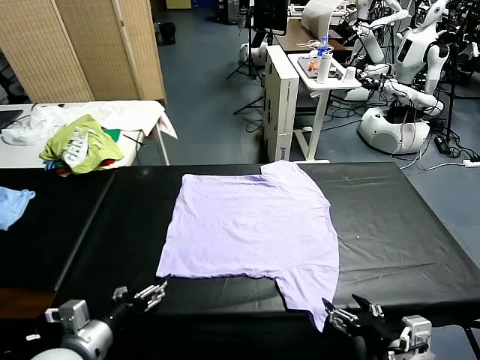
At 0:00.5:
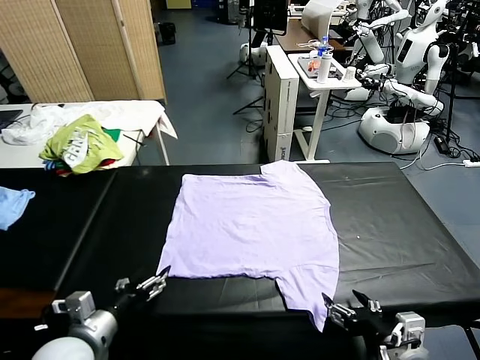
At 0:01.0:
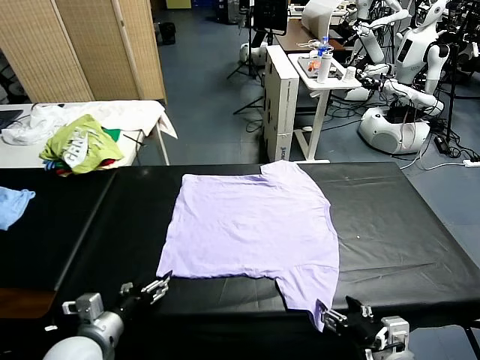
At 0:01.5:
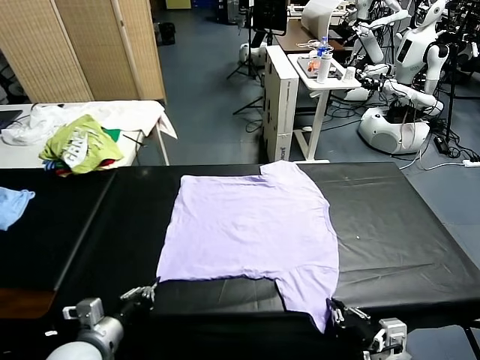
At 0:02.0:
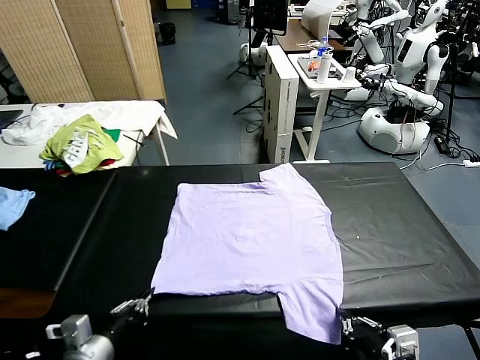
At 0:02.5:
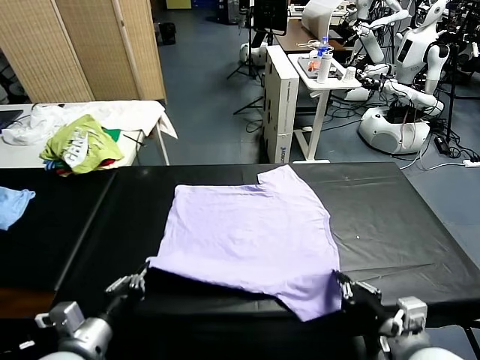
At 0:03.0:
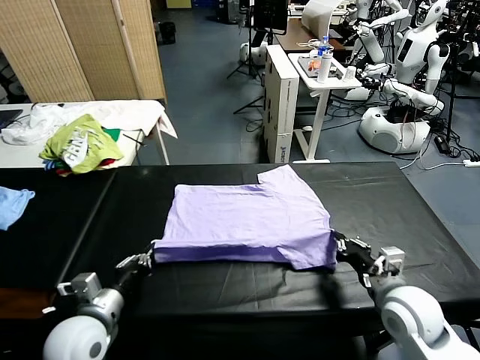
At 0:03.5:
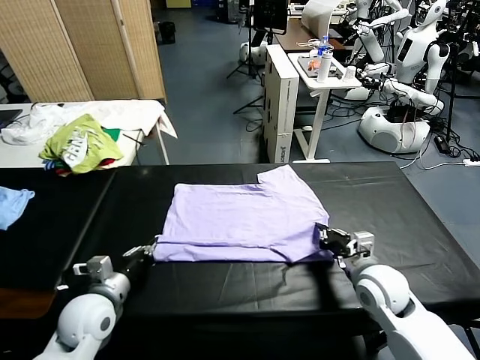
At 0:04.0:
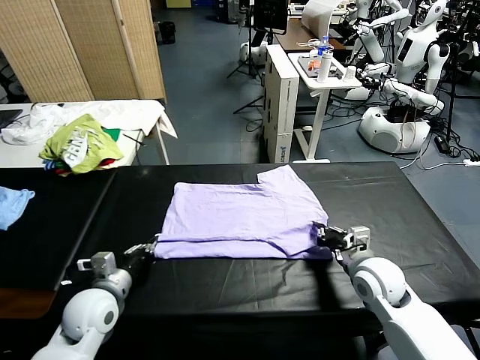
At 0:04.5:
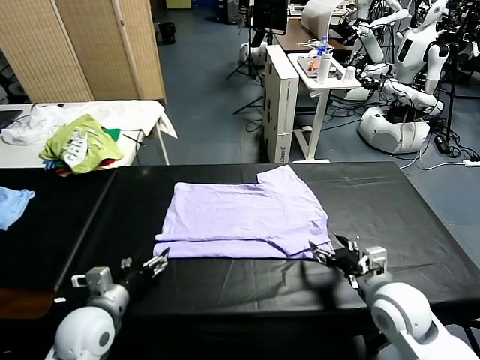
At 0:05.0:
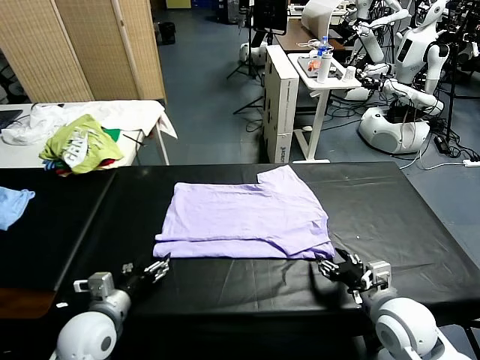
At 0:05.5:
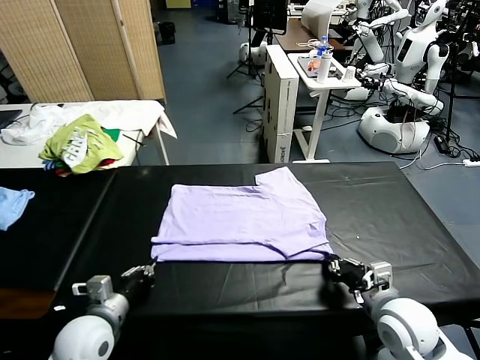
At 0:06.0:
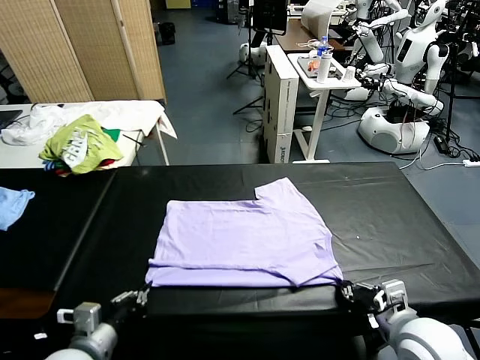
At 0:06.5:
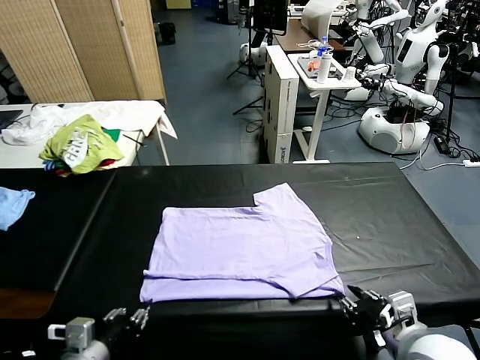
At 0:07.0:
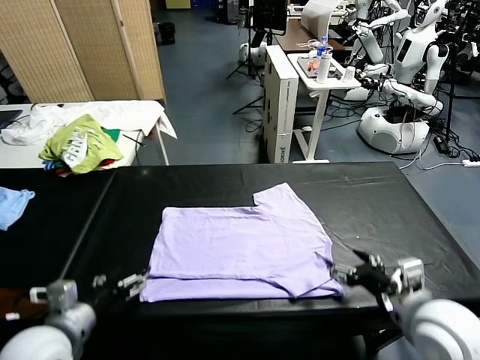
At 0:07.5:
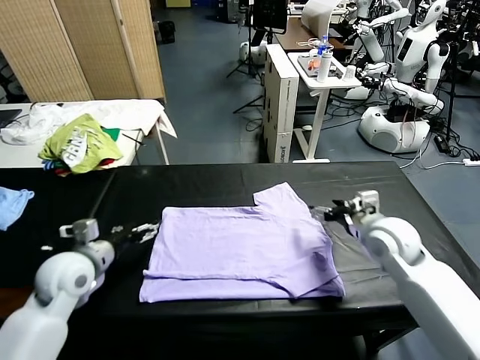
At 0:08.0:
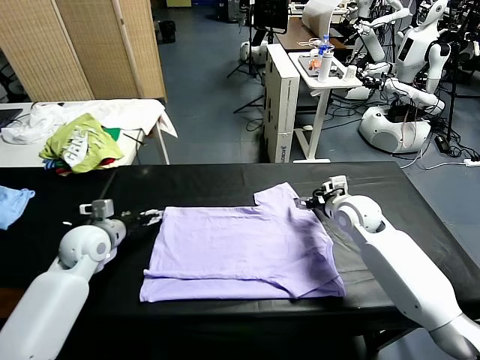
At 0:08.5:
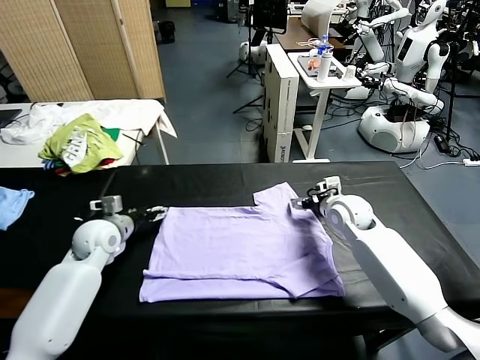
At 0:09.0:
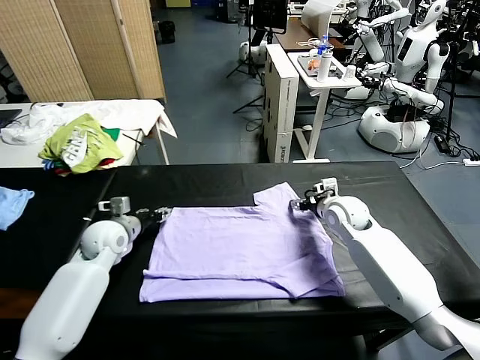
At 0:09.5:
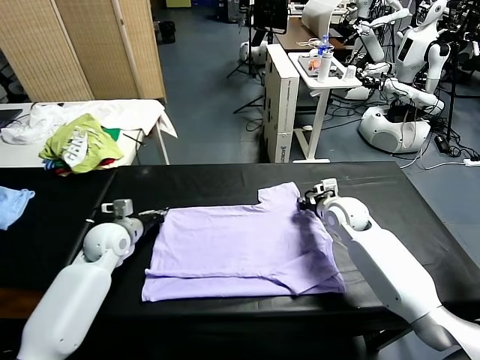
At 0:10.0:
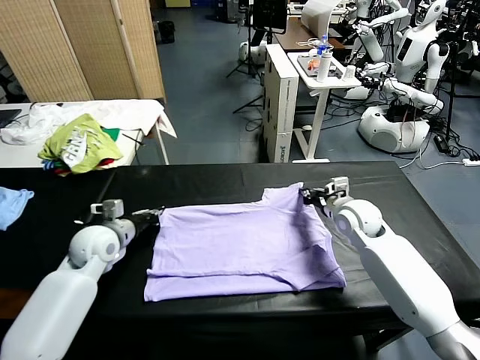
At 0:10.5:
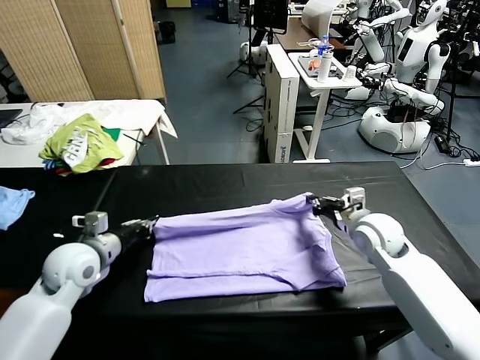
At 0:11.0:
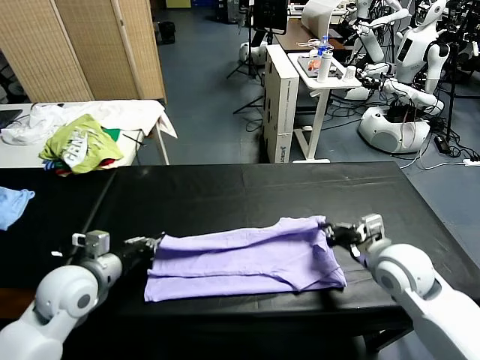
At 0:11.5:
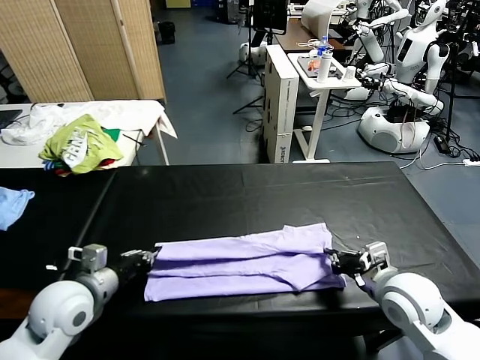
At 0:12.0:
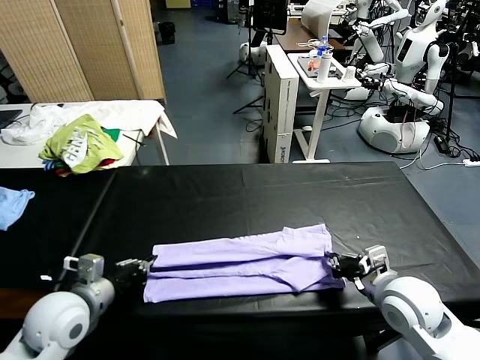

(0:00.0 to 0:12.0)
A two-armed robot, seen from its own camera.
Task of the whole recording: fold and organize the clothes.
Step, 0:00.0 - 0:01.5: use both grippers simultaneously to clamp the lower edge of the clothing fabric.
Step, 0:02.0 - 0:04.0: use both grippers to drag the lower edge of the fabric forward and fold it over the upper edge.
Step, 0:04.5 - 0:06.5: Drag the clothes downward with both gripper.
Step, 0:07.0 - 0:09.5: use both grippers simultaneously to clamp the upper edge of the clothing fabric.
0:02.0 - 0:04.0: The two grippers go roughly 15 cm forward. The right gripper opens its fingers, while the left gripper opens.
0:04.0 - 0:06.0: The grippers both shift backward by some 10 cm. The right gripper closes its fingers. Meanwhile the left gripper closes up.
0:06.0 - 0:08.0: Both grippers move forward, roughly 30 cm. The left gripper opens its fingers; the right gripper opens its fingers.
0:08.0 - 0:10.0: The left gripper closes. The right gripper closes up.
0:10.0 - 0:12.0: The grippers both shift backward by roughly 15 cm.

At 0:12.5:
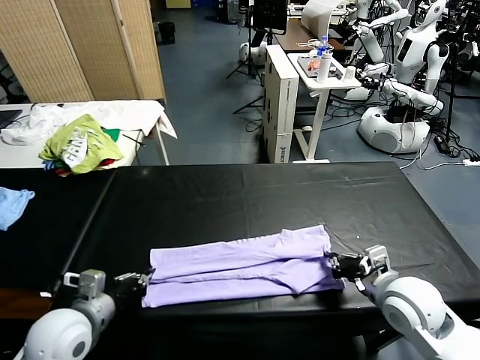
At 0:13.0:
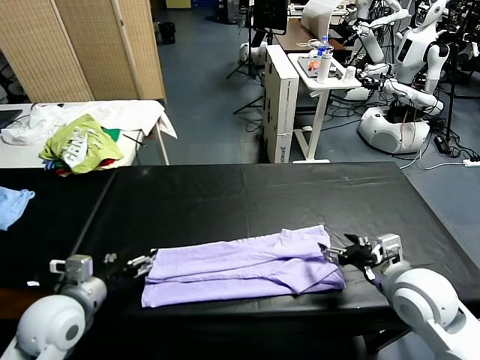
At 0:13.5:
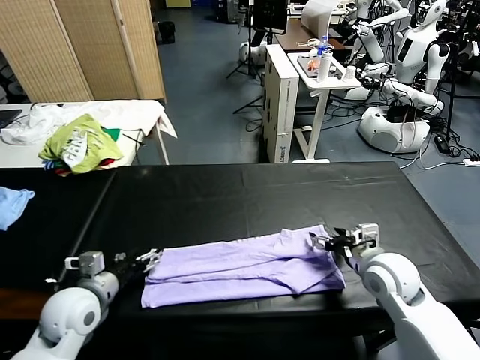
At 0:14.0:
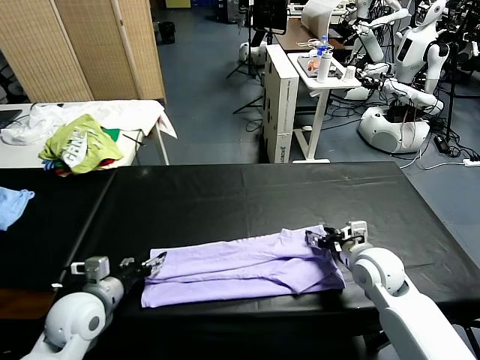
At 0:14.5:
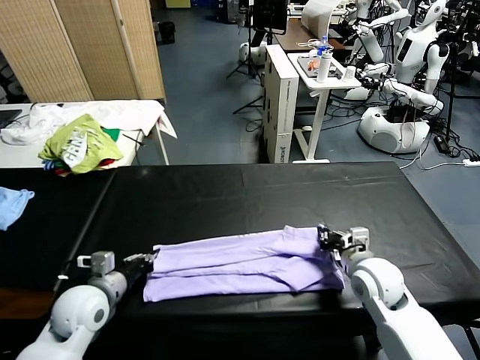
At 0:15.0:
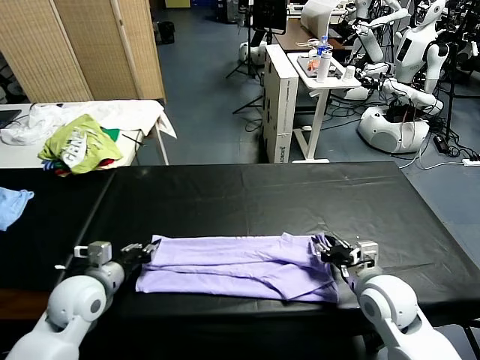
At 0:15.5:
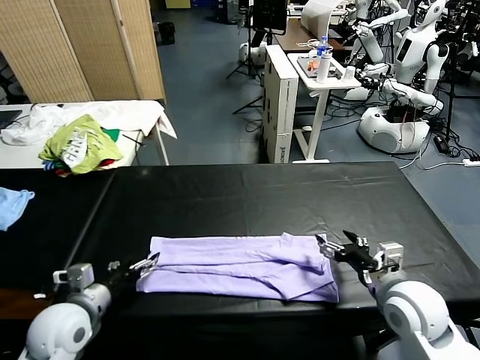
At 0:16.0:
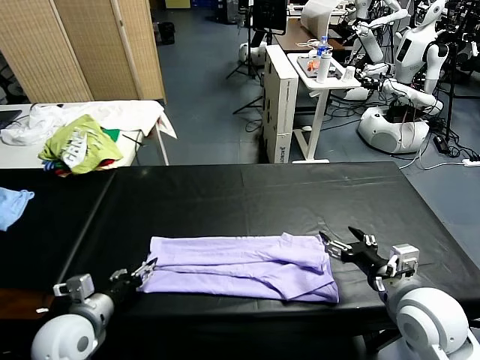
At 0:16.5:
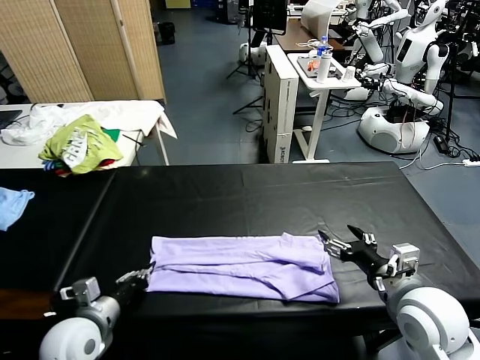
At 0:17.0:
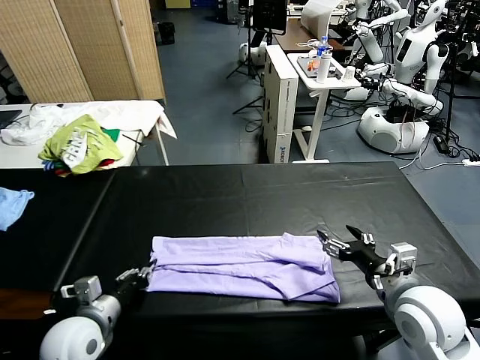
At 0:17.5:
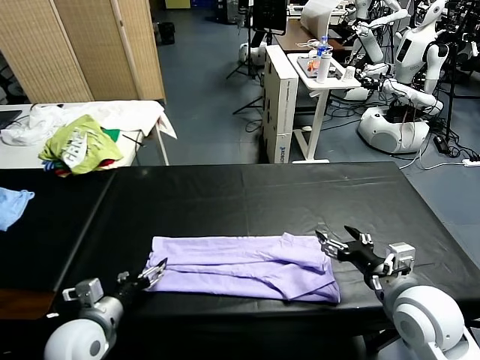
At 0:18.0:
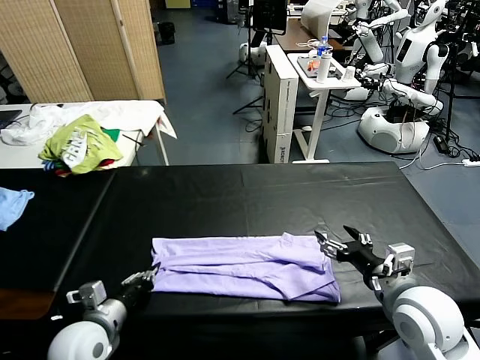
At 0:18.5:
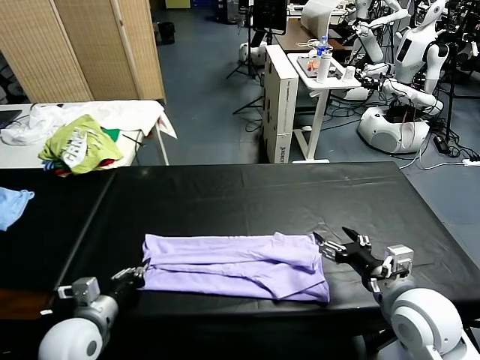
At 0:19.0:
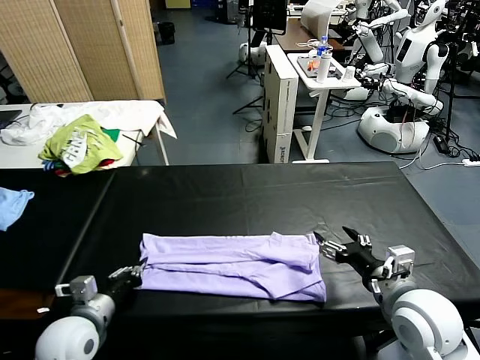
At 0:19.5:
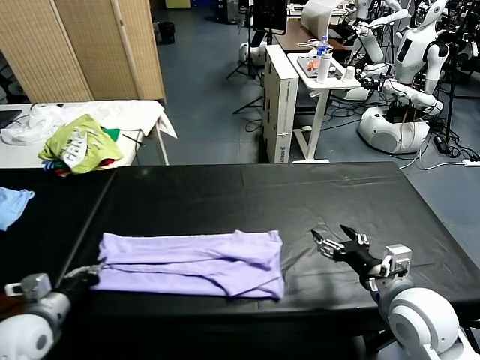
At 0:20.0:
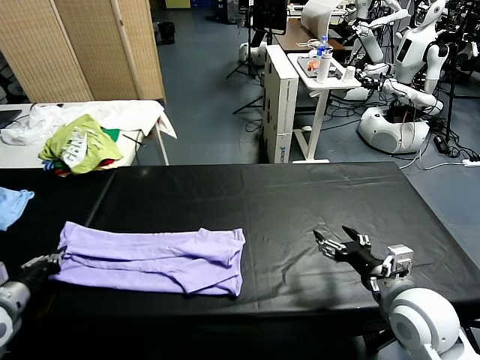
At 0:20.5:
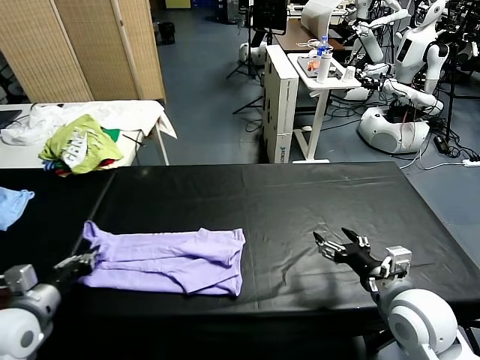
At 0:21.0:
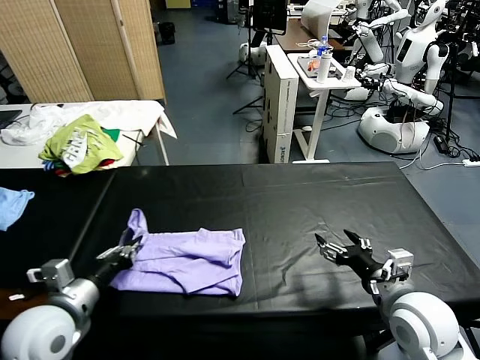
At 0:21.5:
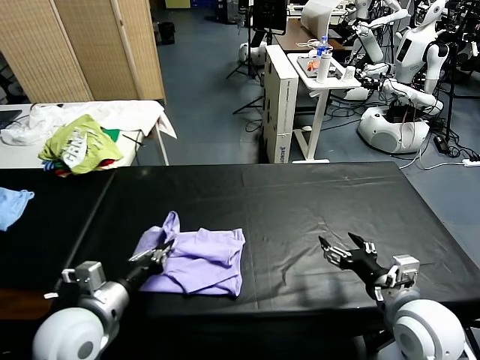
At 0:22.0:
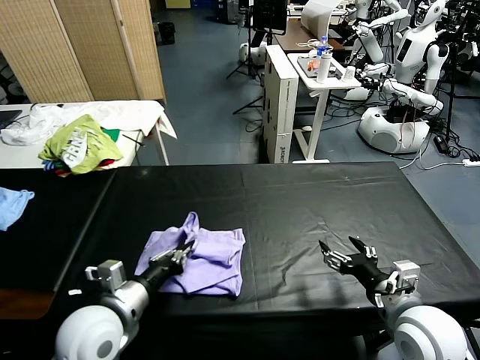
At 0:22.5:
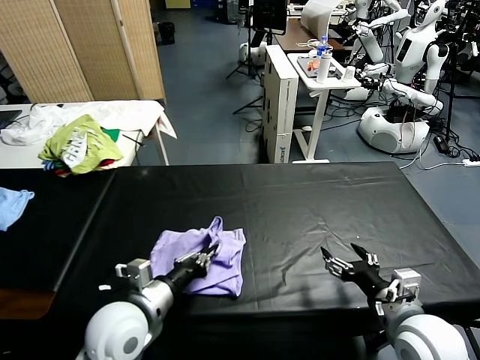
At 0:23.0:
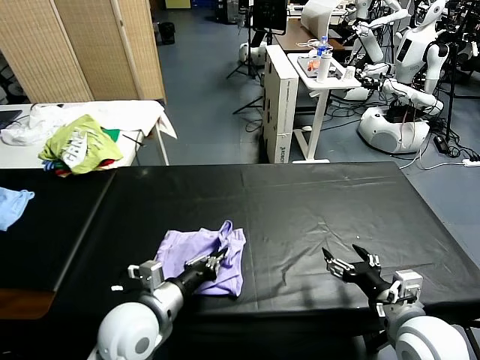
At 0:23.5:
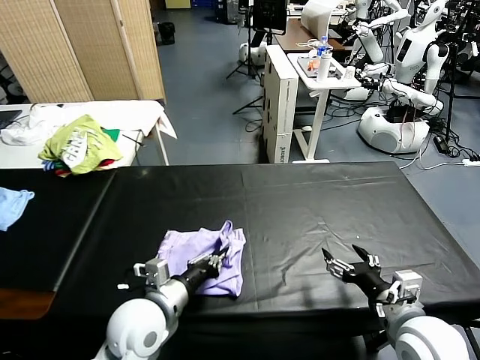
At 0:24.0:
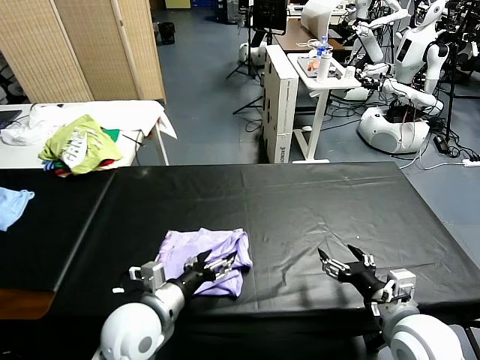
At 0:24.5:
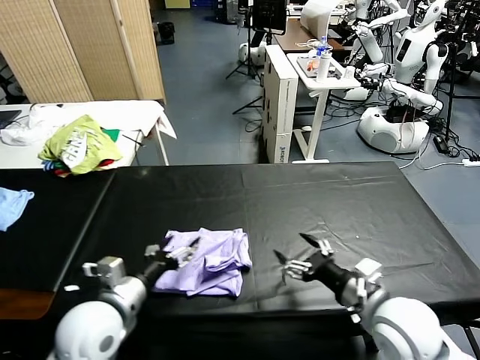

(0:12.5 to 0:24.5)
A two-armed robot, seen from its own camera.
Task of the whole recording: fold and organize the clothes.
Step, 0:13.0 - 0:18.0: use the left gripper to clamp the left edge of the fabric.
Step, 0:18.5 - 0:24.0: use the left gripper to drag the left edge of the fabric to the left and folds it over the right edge.
0:12.5 - 0:14.5: The right gripper shifts about 5 cm downward, and closes up; the left gripper goes approximately 5 cm forward, and opens, then closes once more.
0:14.5 - 0:16.5: The right gripper moves upward and backward, roughly 10 cm, and opens, while the left gripper moves backward, roughly 5 cm, and opens, then closes again.
0:16.5 - 0:18.5: The left gripper opens, then closes again.
0:18.5 - 0:20.5: The left gripper is displaced to the left and upward by approximately 10 cm.
0:20.5 - 0:22.5: The left gripper heads to the right, covering approximately 20 cm.
0:22.5 - 0:24.5: The left gripper opens its fingers, while the right gripper is displaced to the left by roughly 5 cm.

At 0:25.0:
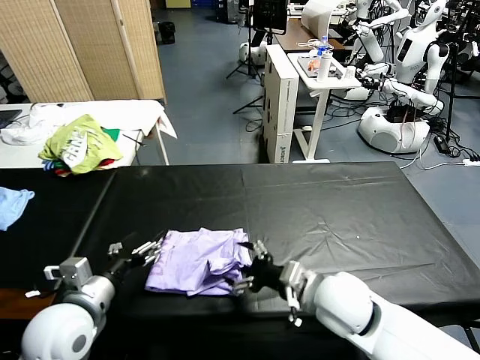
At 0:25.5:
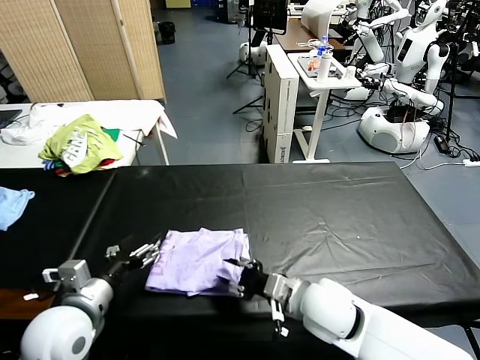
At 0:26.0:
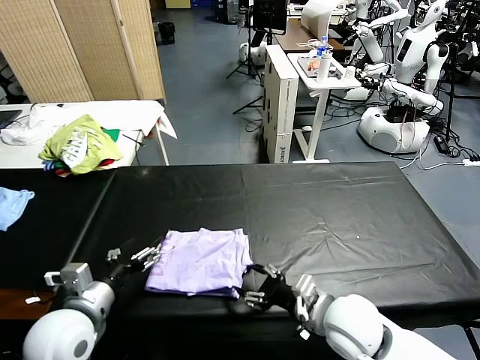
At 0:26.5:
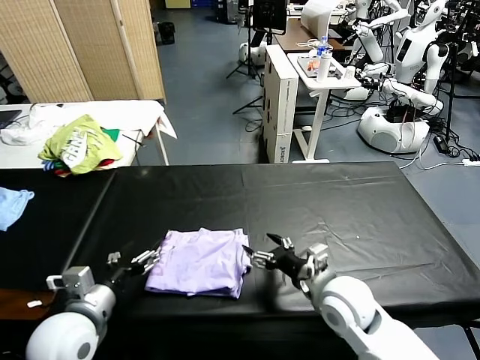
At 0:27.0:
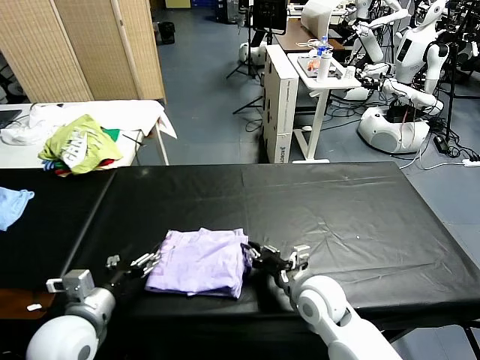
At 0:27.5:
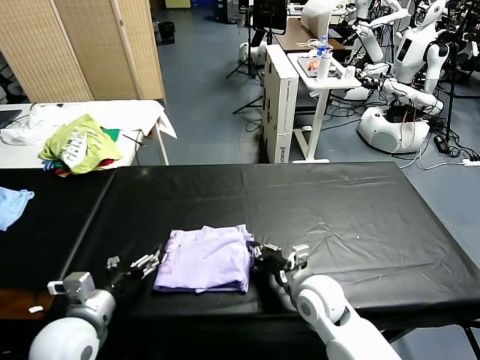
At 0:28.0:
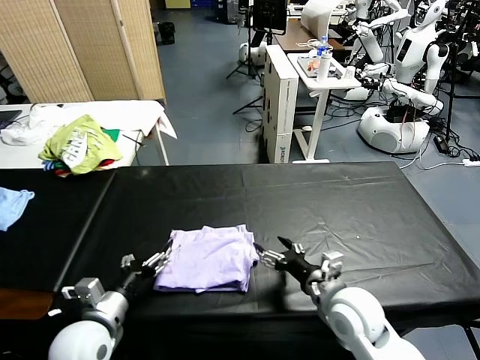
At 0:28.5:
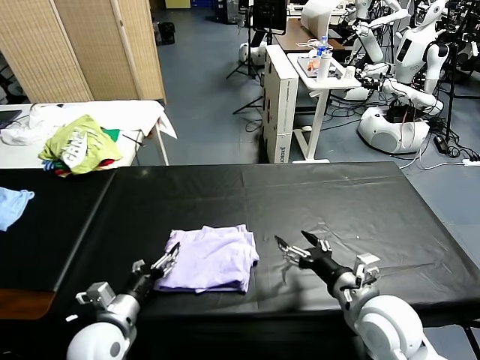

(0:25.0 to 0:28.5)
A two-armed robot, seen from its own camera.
Task of the whole recording: fold and organize the clothes.
0:25.0 - 0:27.0: The right gripper moves downward, about 10 cm, and closes its fingers.
0:27.0 - 0:28.5: The right gripper travels to the right, upward and backward by about 15 cm, and opens up; the left gripper is displaced downward by approximately 10 cm.
